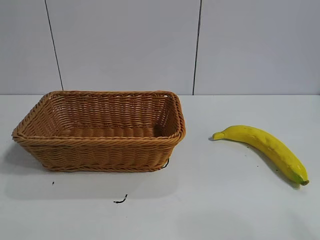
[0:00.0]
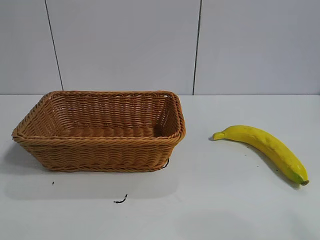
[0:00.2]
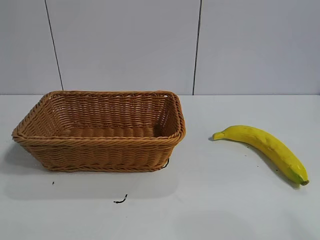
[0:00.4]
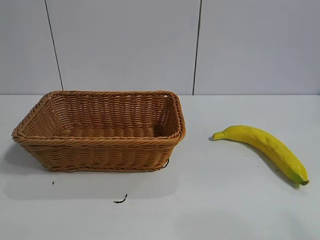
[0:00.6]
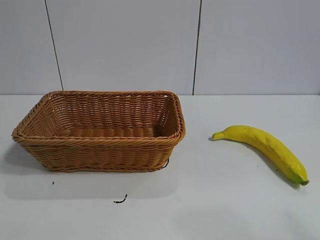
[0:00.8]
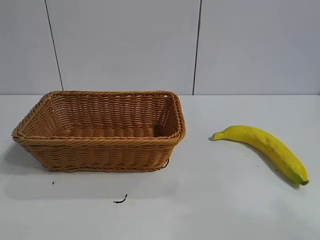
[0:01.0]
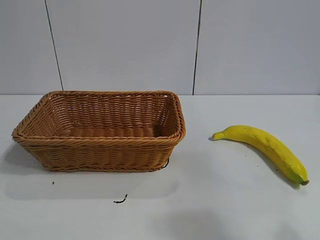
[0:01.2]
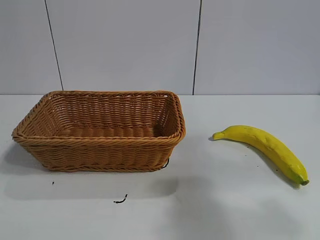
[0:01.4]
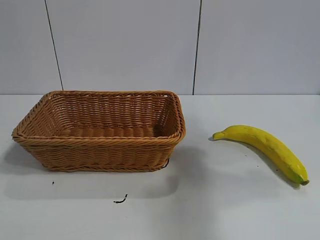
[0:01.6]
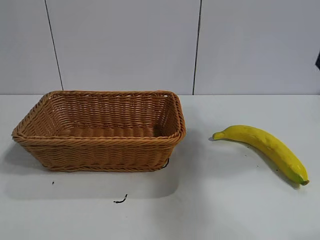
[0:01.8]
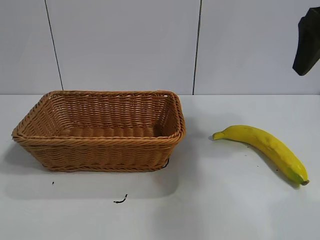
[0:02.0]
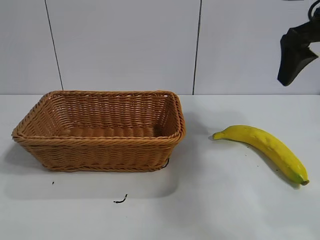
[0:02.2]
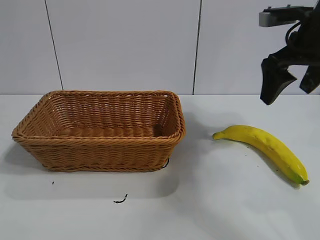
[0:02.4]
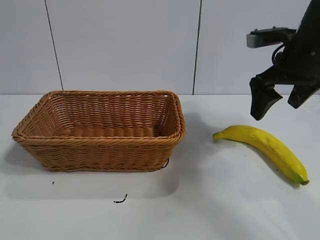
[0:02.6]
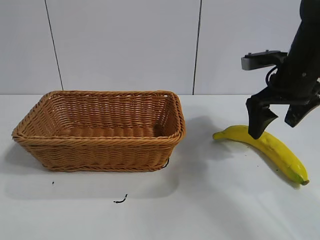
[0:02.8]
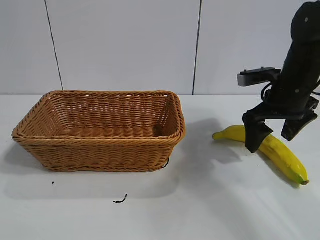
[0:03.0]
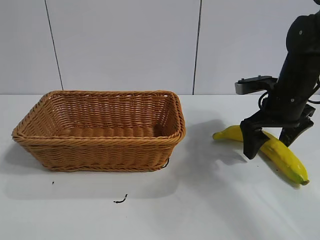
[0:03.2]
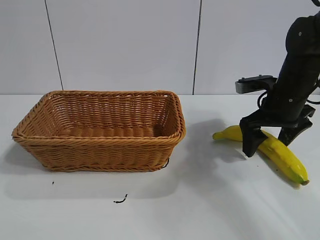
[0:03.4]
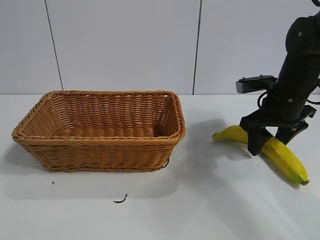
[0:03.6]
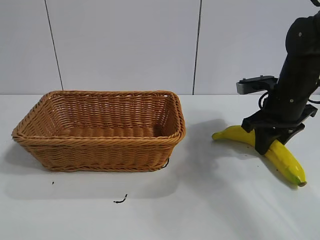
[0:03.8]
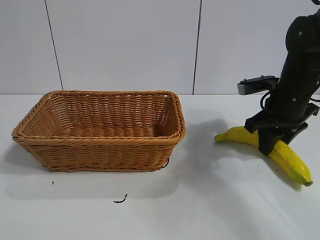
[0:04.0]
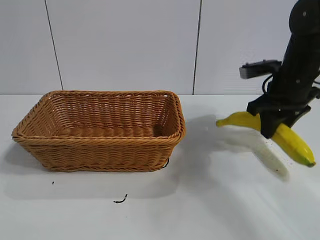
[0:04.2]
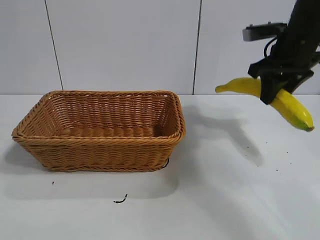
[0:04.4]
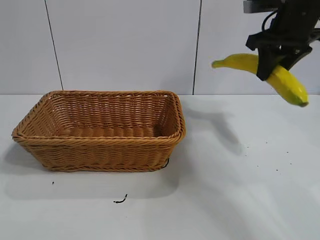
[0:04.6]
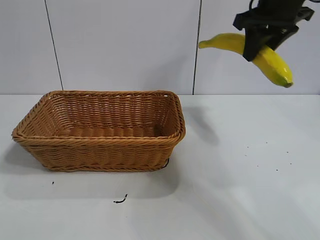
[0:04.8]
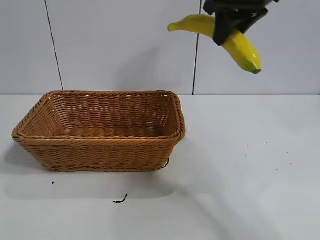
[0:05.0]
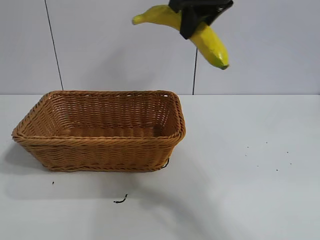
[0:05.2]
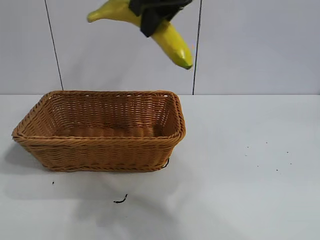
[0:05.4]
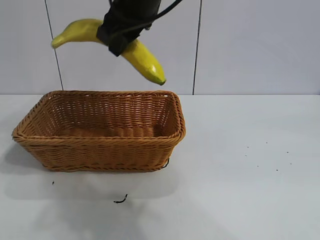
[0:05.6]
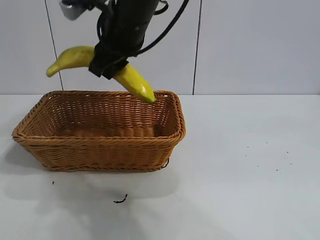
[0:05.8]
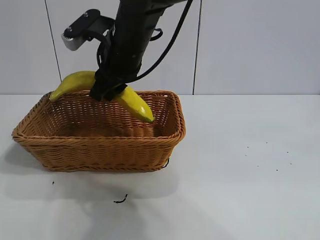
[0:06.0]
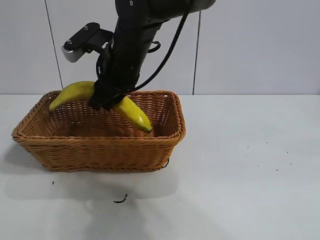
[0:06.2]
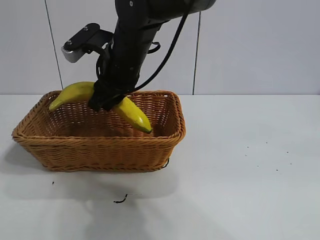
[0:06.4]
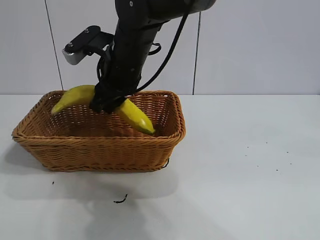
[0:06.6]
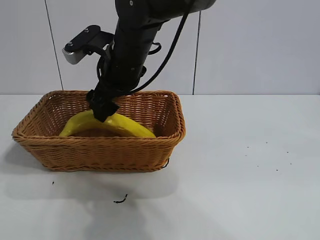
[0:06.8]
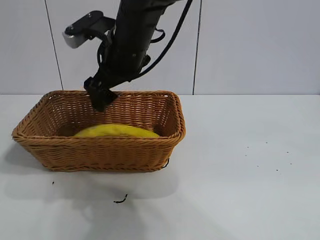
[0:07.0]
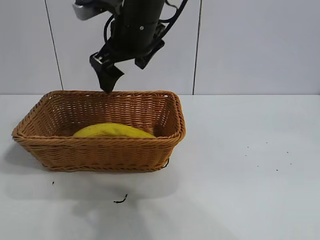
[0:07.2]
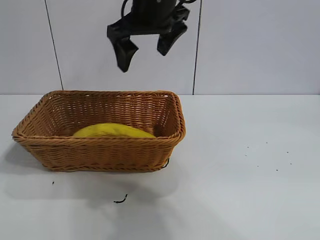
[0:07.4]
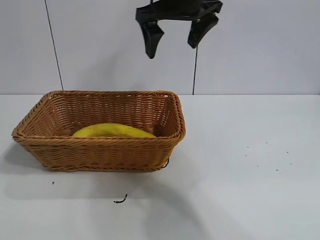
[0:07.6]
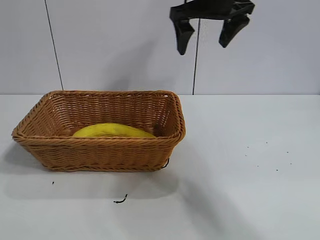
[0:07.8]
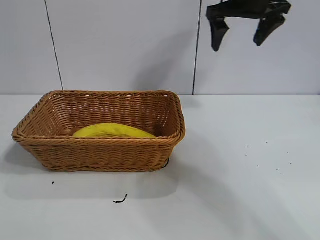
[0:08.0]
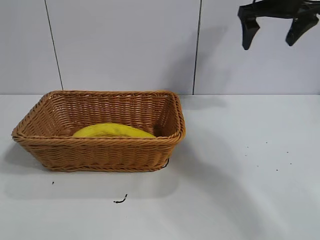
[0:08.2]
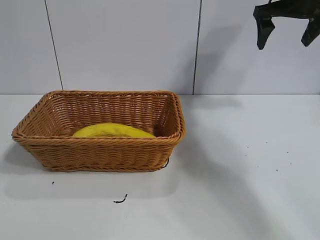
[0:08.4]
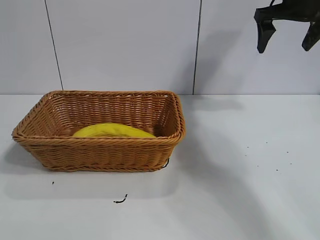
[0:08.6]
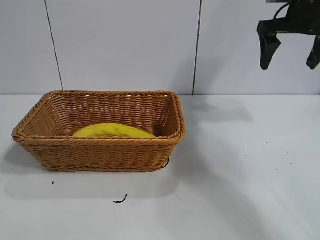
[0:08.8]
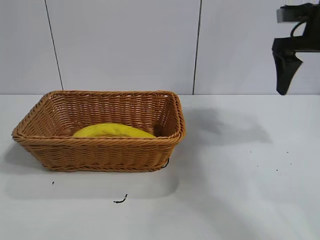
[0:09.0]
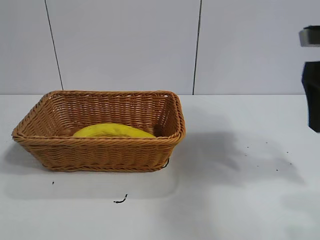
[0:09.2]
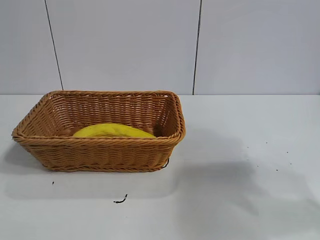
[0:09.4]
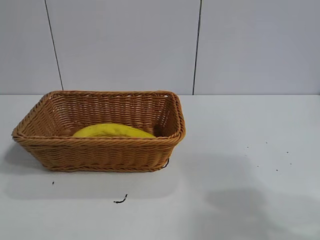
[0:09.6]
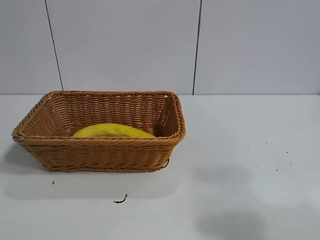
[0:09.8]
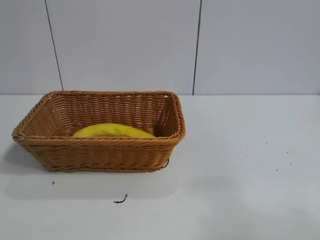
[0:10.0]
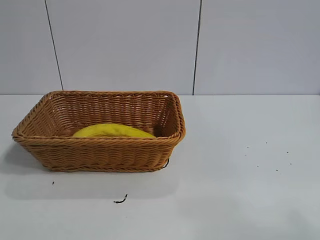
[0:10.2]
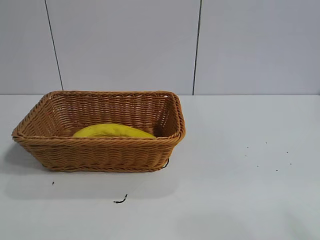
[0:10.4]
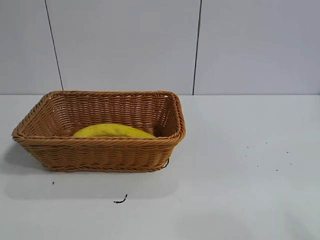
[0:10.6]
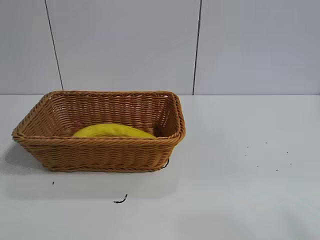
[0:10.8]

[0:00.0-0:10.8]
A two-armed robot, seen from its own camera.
Task of the whole recording: pick up the banana and put it into the basket.
Step, 0:01.8 to 0:04.0: Grasp the banana with right gripper.
Step, 0:04.2 to 0:06.8: Place the banana in the basket with right gripper.

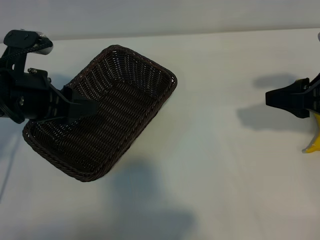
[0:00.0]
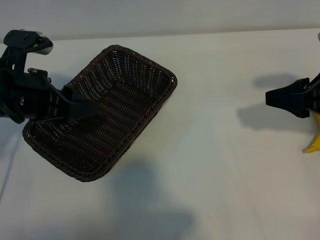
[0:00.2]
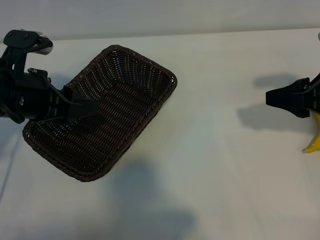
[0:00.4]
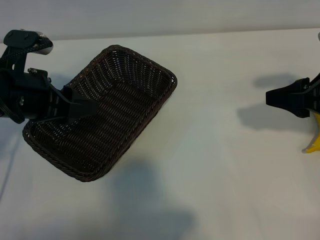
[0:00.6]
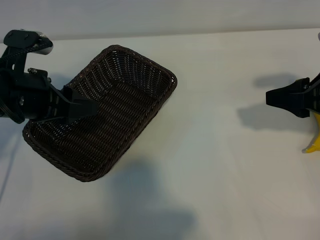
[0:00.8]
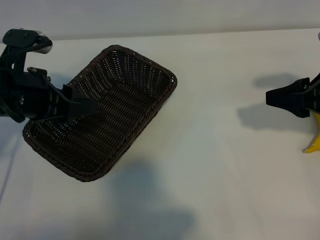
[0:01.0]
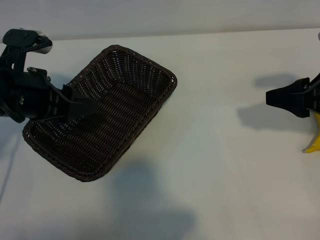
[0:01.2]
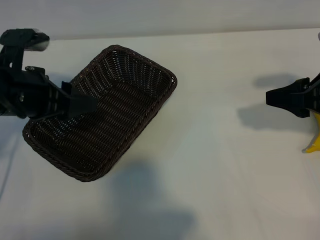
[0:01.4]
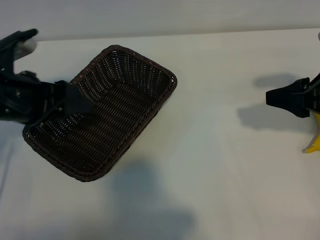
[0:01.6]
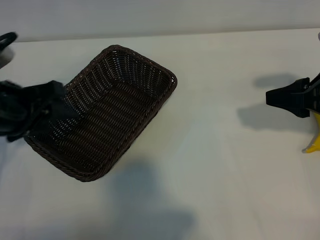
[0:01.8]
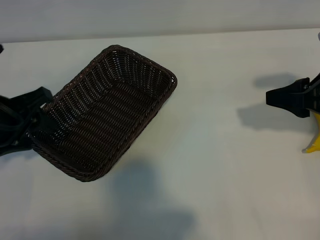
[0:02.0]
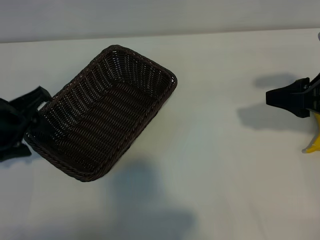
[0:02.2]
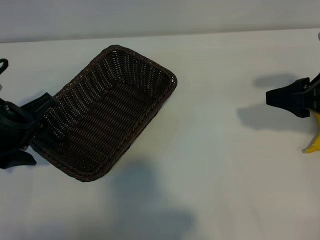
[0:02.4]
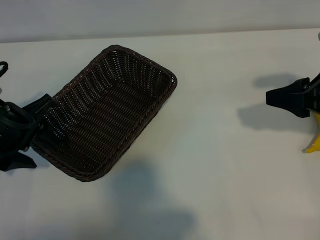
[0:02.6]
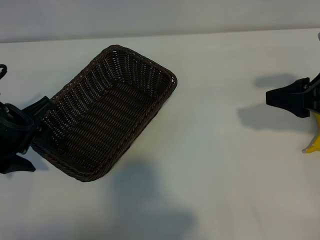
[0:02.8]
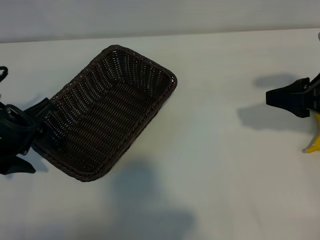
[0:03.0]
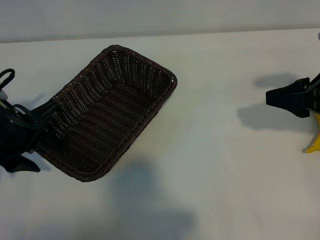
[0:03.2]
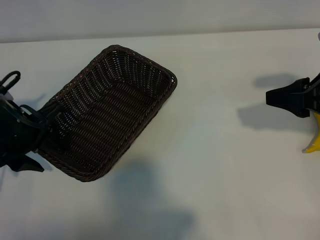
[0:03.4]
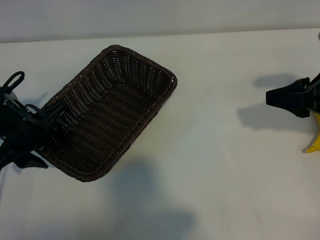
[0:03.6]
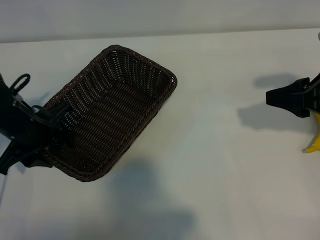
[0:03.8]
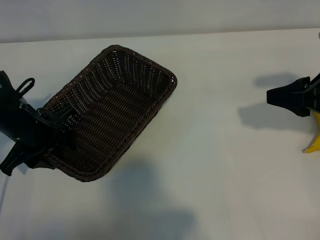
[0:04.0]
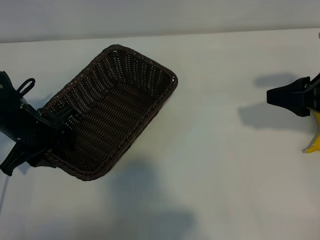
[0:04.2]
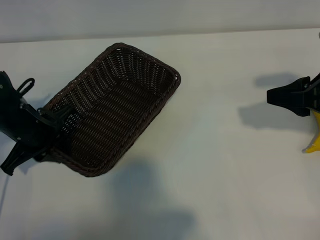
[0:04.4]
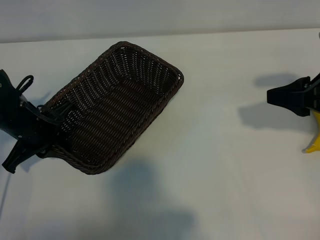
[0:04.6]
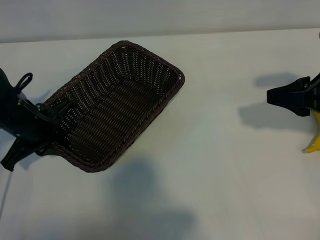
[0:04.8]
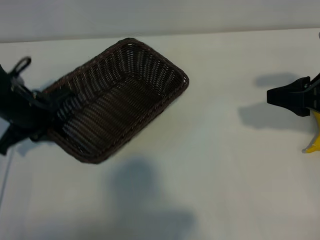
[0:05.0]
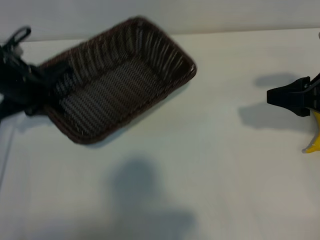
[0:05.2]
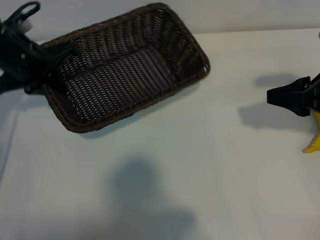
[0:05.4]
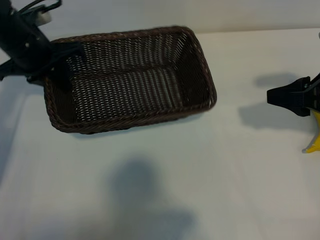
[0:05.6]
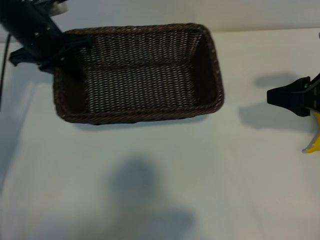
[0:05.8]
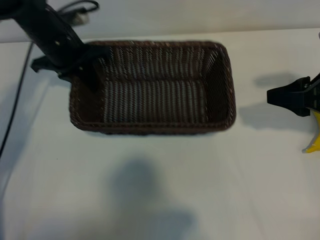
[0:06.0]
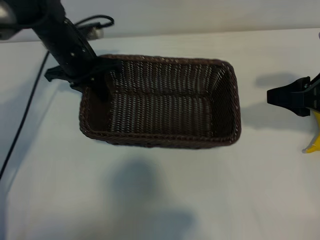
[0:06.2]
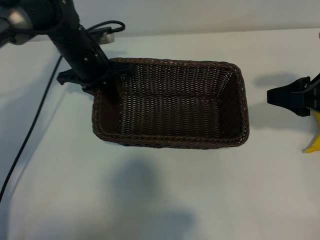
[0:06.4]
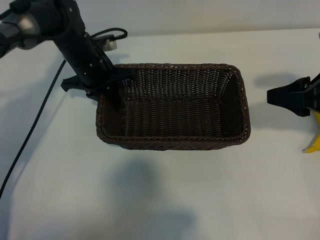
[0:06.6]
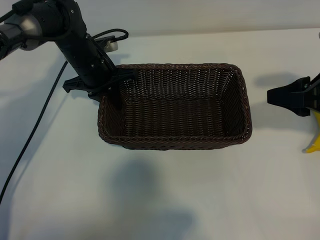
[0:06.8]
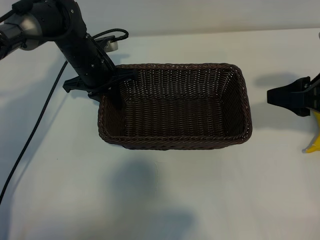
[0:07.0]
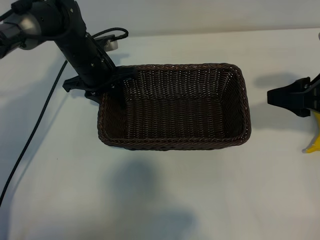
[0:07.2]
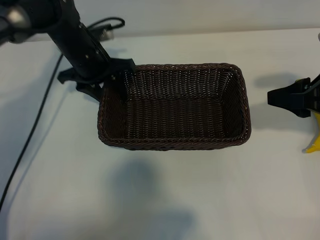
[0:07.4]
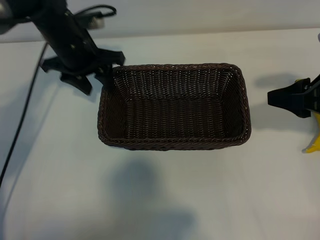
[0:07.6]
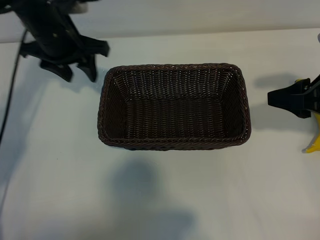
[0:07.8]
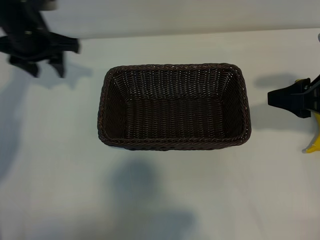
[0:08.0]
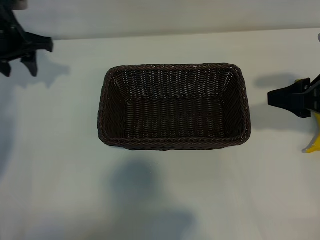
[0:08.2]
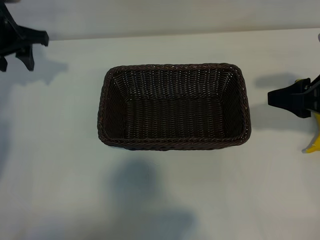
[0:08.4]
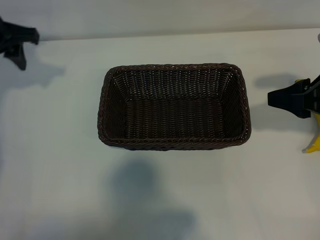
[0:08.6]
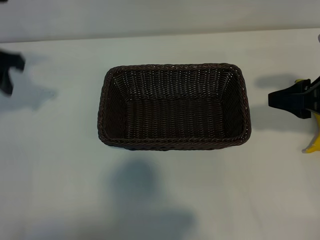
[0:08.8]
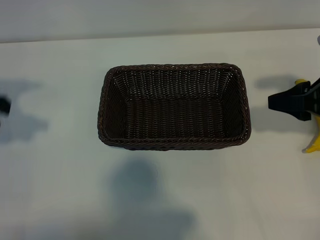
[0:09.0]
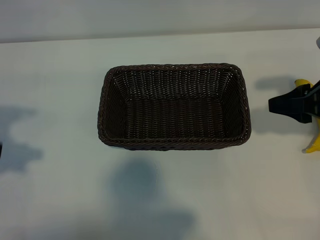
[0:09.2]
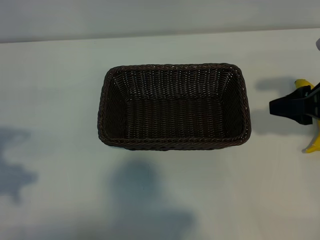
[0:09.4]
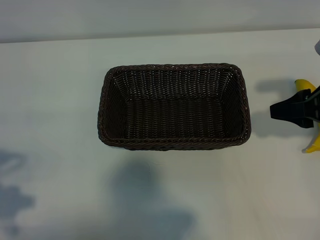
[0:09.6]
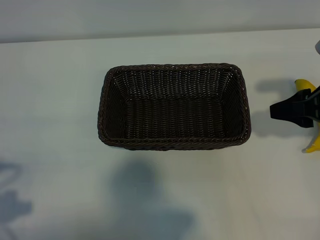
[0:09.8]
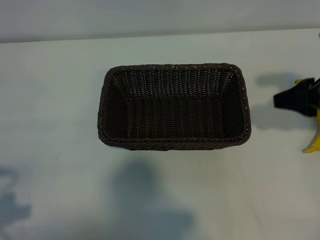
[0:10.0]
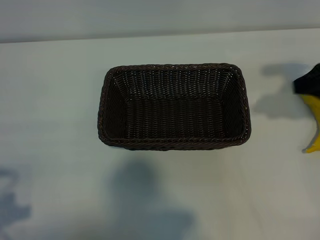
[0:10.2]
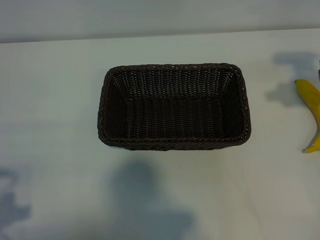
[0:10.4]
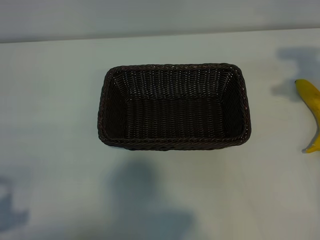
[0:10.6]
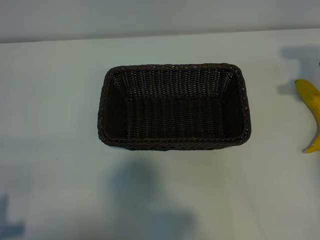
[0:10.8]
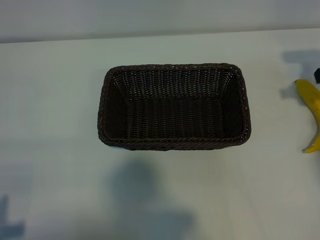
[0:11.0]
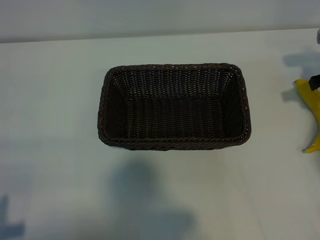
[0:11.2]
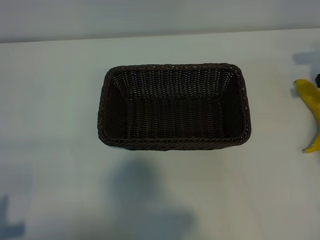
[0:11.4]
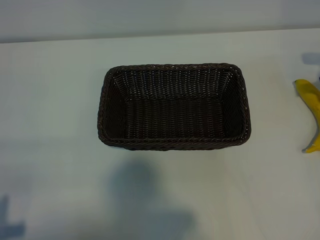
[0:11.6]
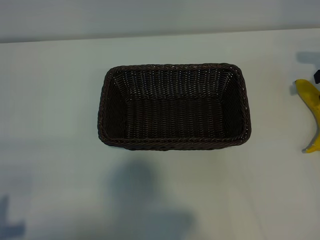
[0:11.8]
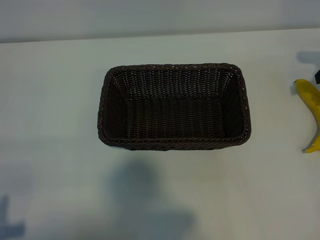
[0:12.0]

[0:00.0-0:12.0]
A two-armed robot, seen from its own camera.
Task of the whole recording: pick up the banana and put it into the basket.
Step, 0:01.0 to 0:04.4: Grasp the basket with the left gripper.
Step, 0:04.6 to 0:07.6: Place the basket in the center of the table with the left gripper.
